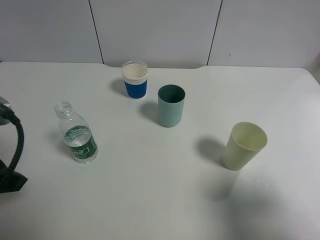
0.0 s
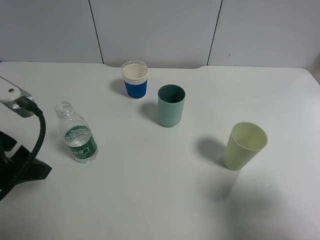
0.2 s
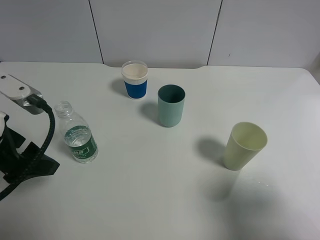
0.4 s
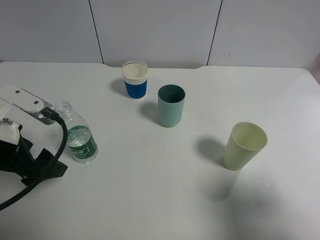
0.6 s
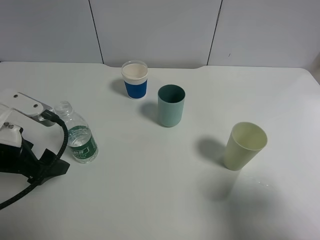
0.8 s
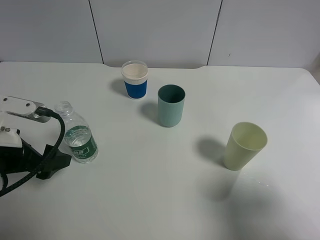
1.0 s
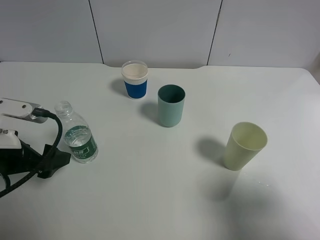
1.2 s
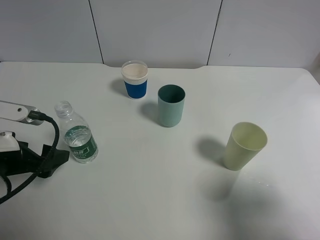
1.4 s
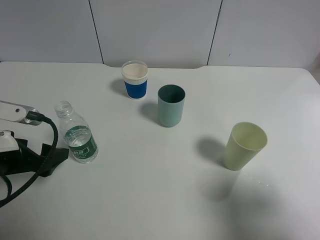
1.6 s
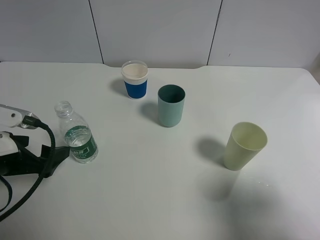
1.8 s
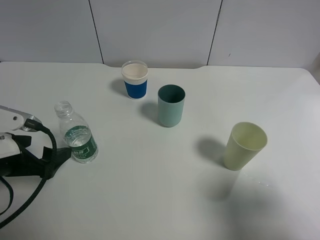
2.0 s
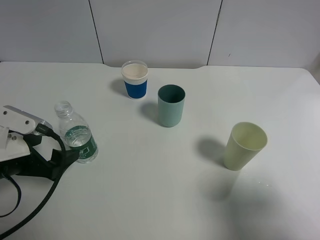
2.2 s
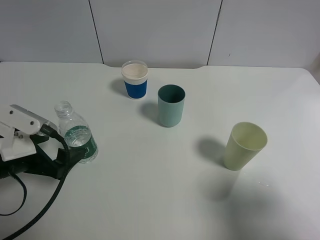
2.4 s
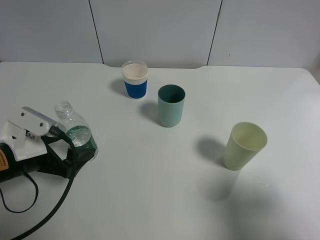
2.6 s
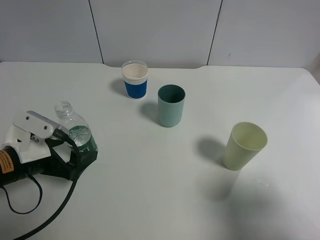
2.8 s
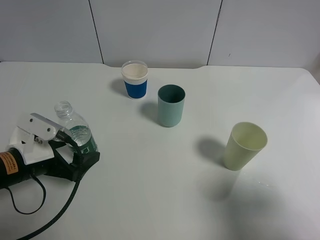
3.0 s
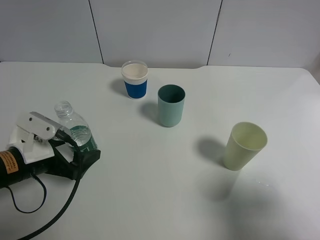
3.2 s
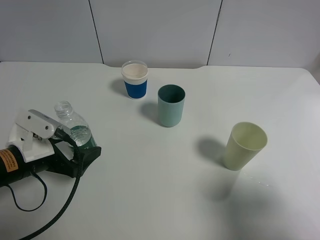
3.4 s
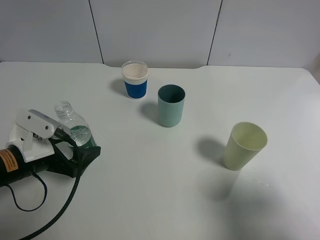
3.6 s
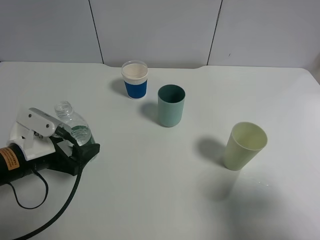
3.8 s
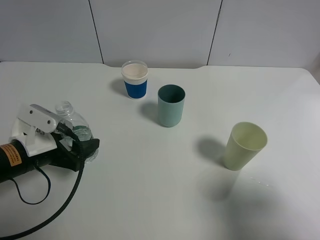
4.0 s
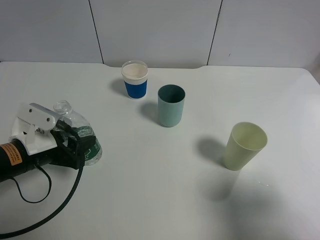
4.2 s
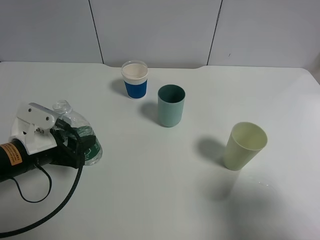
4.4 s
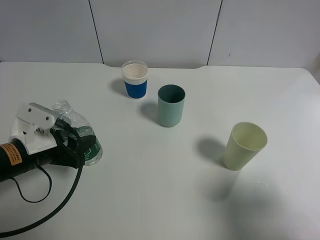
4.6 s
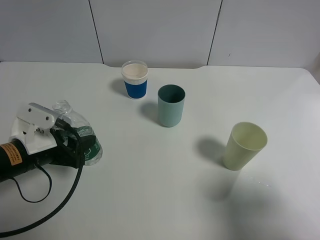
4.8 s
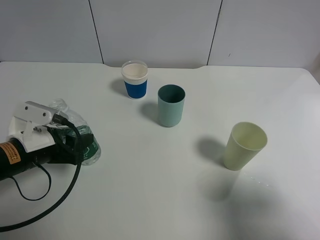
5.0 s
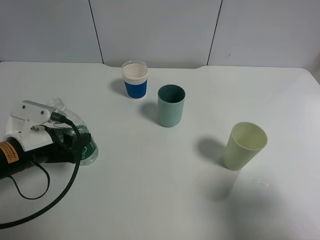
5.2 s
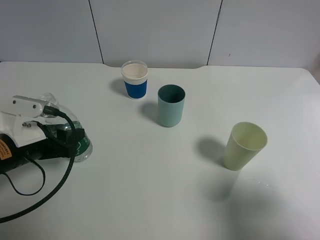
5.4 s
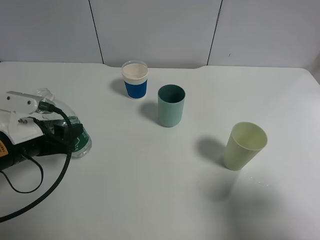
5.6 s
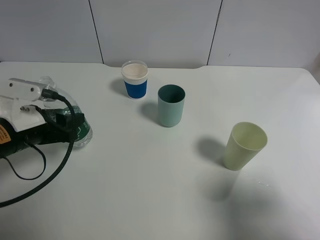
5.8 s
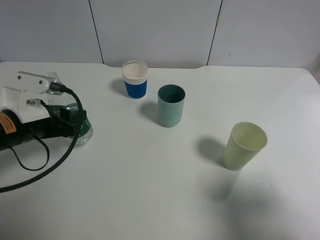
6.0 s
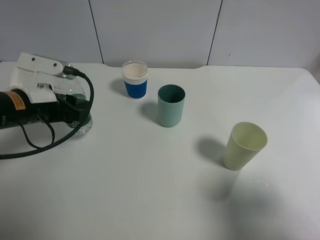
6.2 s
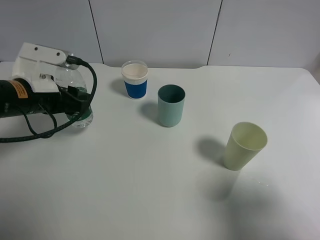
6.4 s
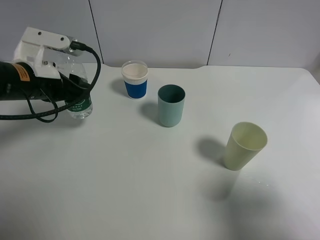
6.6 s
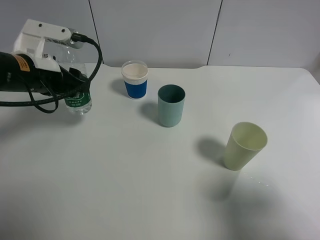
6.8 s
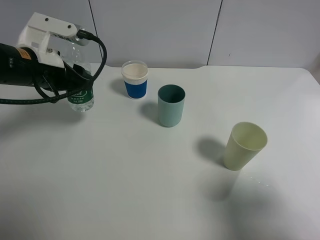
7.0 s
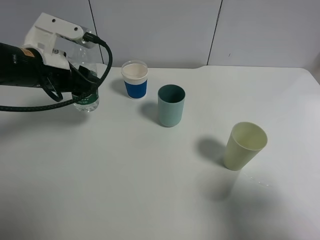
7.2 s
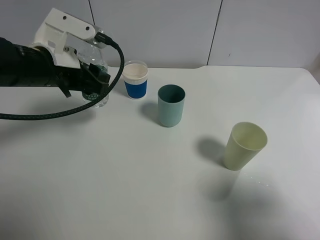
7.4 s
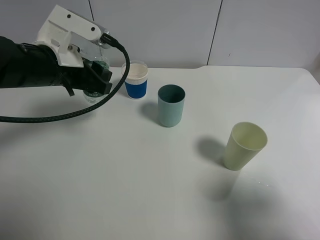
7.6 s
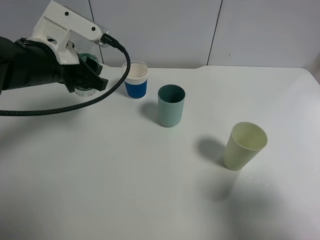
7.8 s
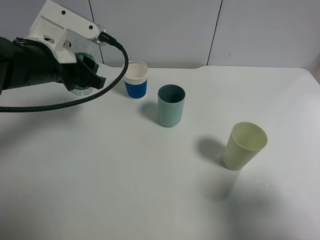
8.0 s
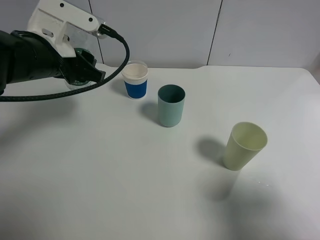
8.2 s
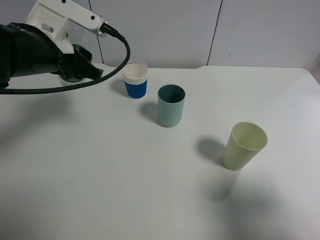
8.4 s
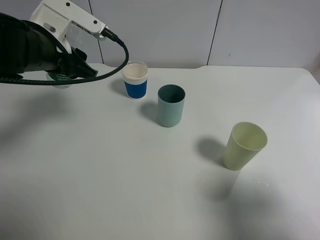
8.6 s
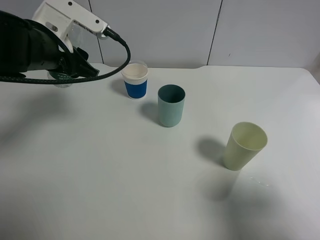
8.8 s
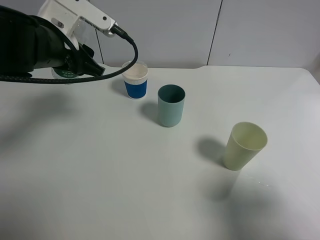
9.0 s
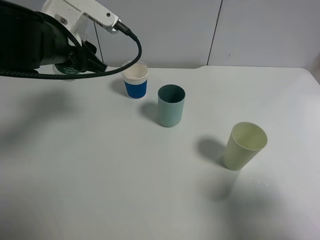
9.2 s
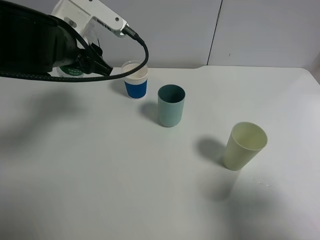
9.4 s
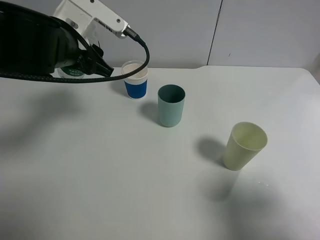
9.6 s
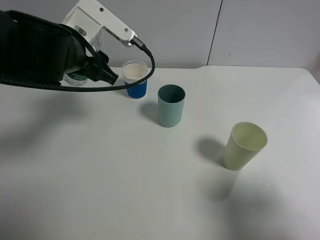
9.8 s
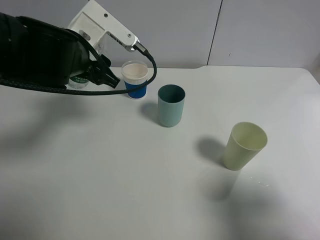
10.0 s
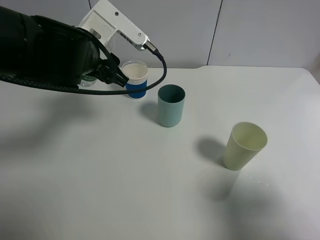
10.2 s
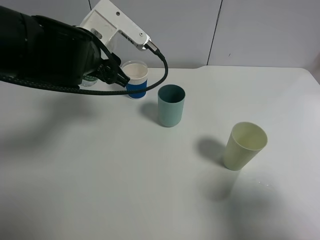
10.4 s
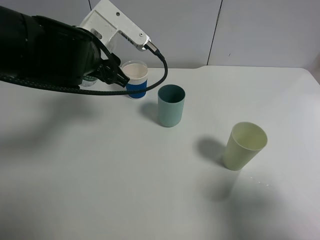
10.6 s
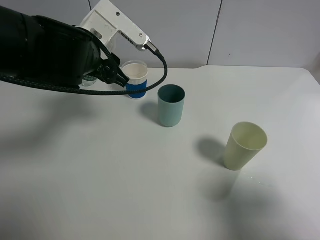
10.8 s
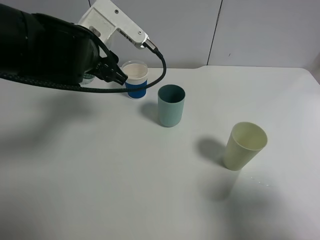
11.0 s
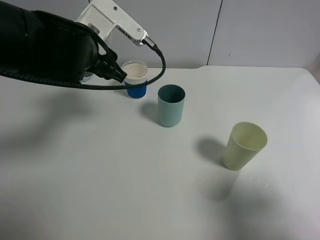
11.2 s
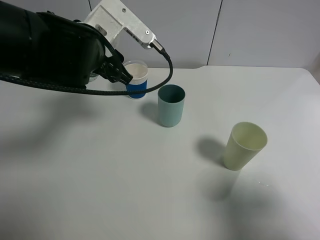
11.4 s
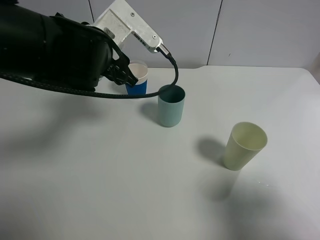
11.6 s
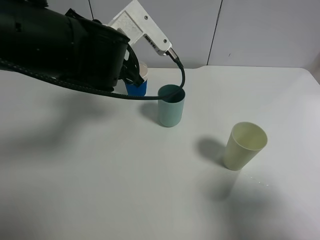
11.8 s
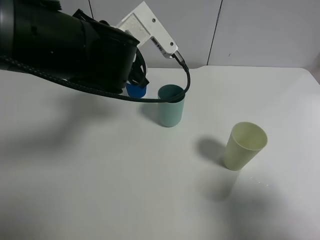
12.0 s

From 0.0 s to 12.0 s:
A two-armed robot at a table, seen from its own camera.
Task of the whole recording: use a gripper to hold the bottle of the drink and pour it into a random cup.
Step, from 0.0 s to 4.4 s: Grasp the mineral water bottle with the left gripper.
From 0.0 s to 1.6 s: The left gripper travels downward by approximately 10 cm.
From 1.6 s to 3.0 s: The left gripper moves downward, about 5 cm.
From 3.0 s to 4.4 s: The left gripper closes.
From 4.4 s to 6.0 s: The left gripper changes place by approximately 5 cm.
From 6.0 s to 7.6 s: The left gripper heads upward, forward and to the right, covering about 10 cm.
From 9.0 s to 10.4 s: The left gripper is displaced to the right by about 5 cm.
From 10.4 s to 12.0 s: The grippers stay close to where they were, moving slightly.

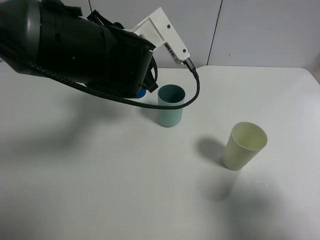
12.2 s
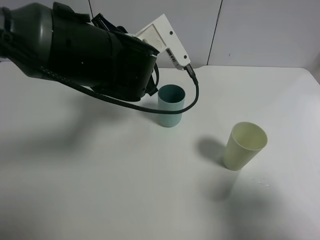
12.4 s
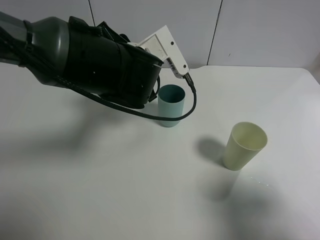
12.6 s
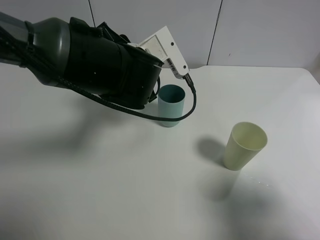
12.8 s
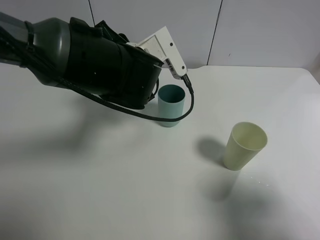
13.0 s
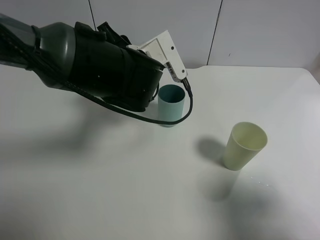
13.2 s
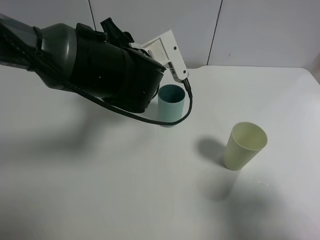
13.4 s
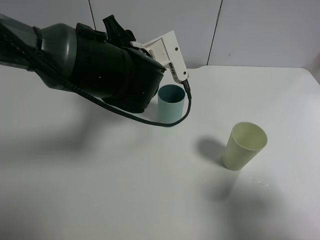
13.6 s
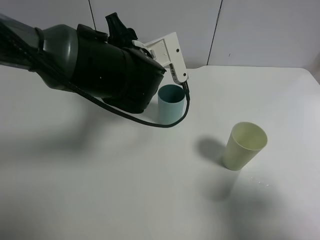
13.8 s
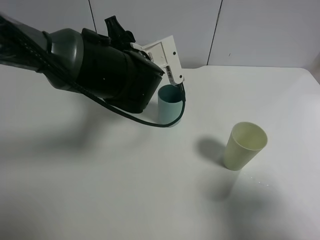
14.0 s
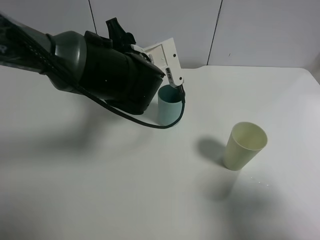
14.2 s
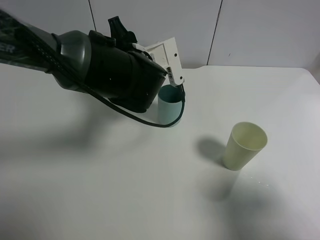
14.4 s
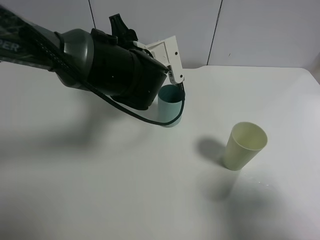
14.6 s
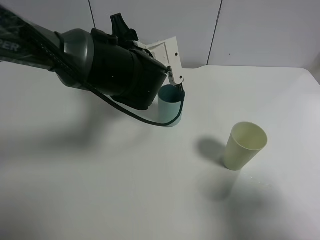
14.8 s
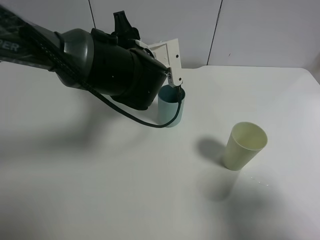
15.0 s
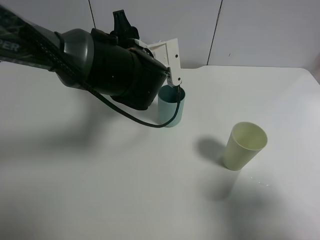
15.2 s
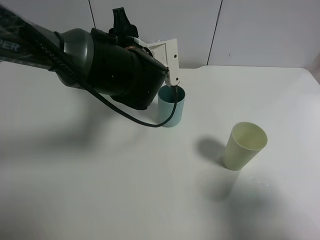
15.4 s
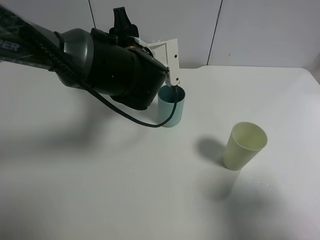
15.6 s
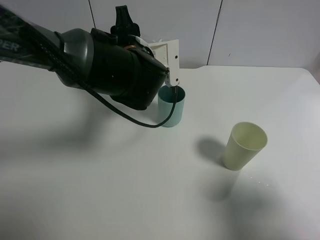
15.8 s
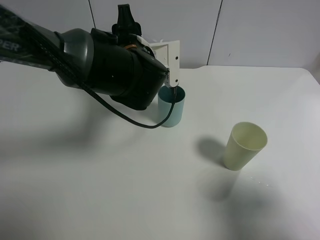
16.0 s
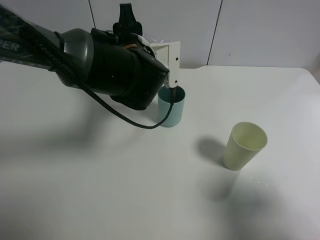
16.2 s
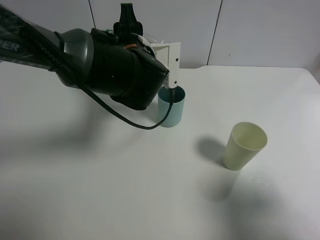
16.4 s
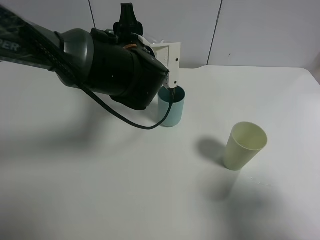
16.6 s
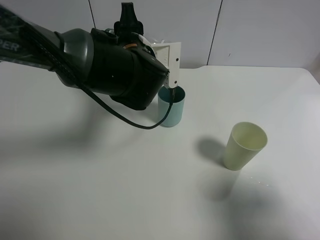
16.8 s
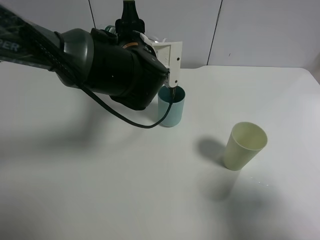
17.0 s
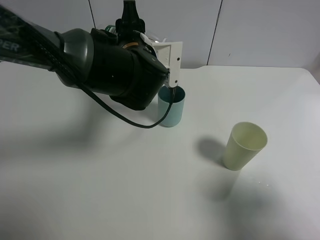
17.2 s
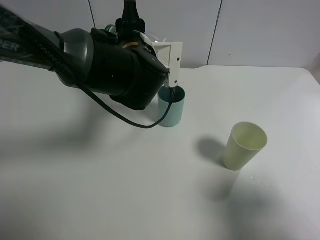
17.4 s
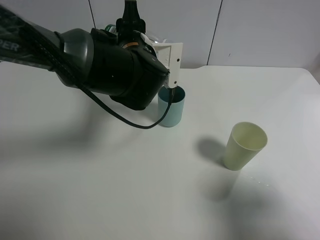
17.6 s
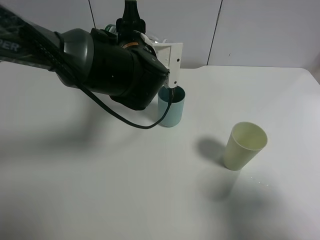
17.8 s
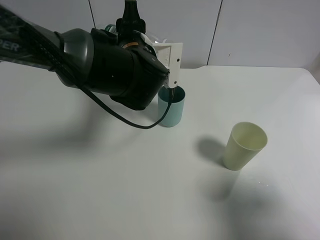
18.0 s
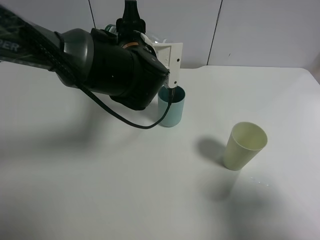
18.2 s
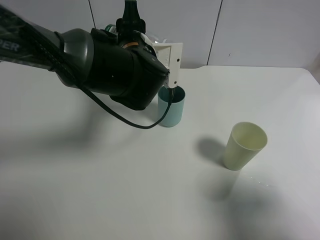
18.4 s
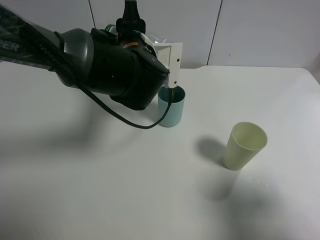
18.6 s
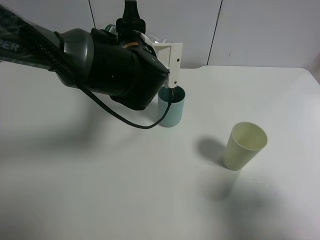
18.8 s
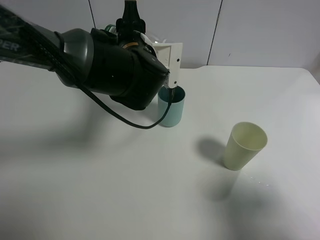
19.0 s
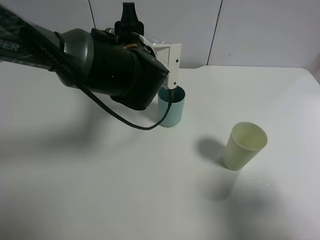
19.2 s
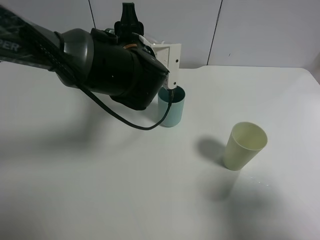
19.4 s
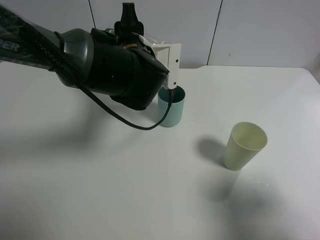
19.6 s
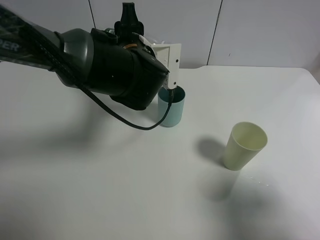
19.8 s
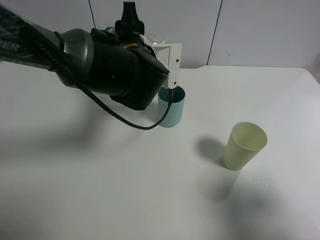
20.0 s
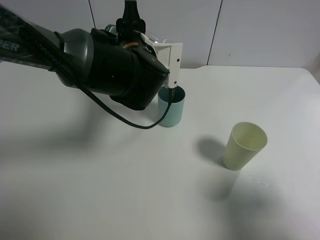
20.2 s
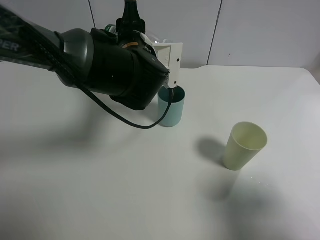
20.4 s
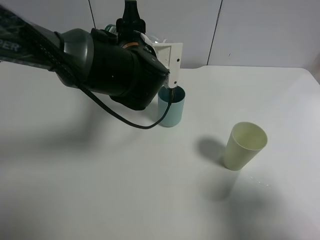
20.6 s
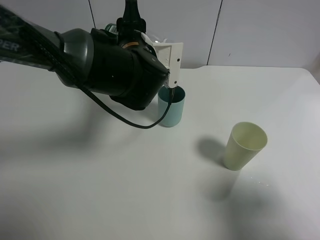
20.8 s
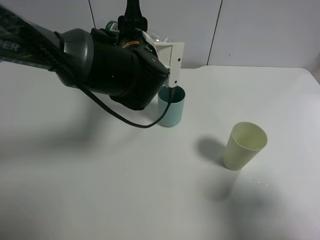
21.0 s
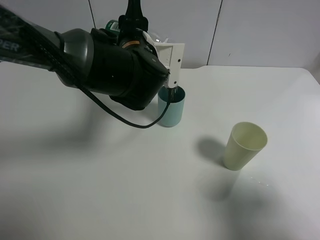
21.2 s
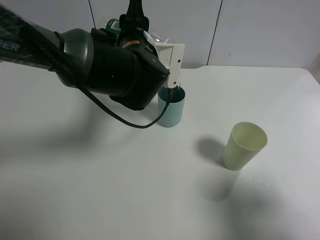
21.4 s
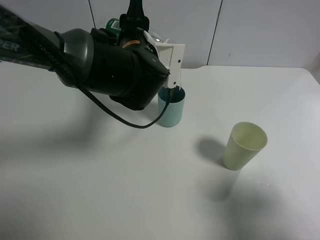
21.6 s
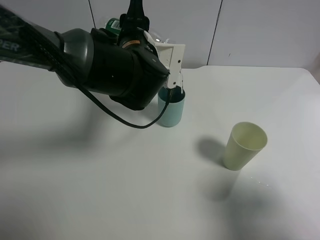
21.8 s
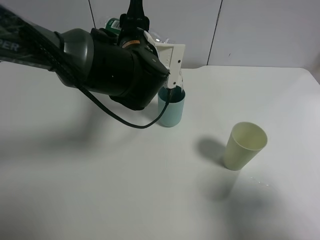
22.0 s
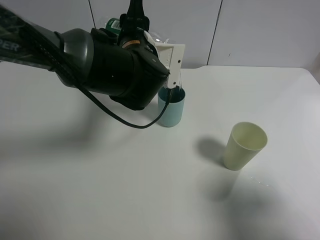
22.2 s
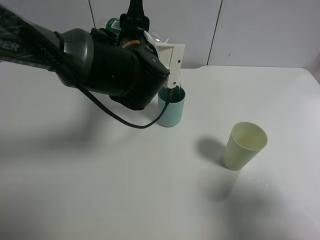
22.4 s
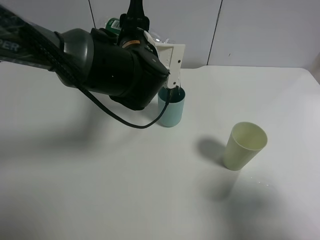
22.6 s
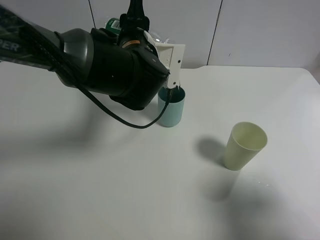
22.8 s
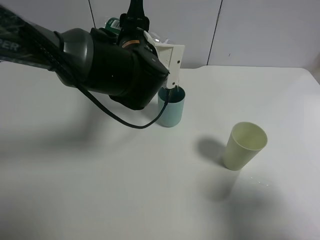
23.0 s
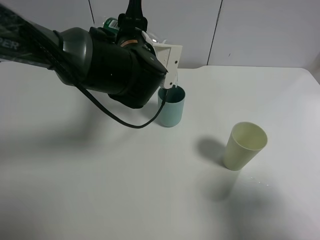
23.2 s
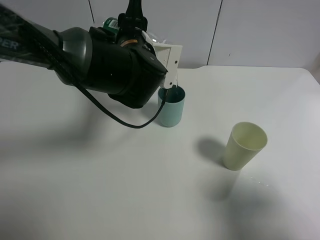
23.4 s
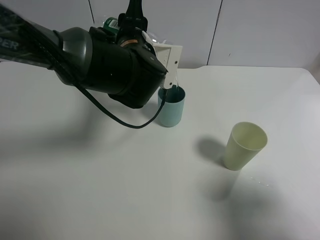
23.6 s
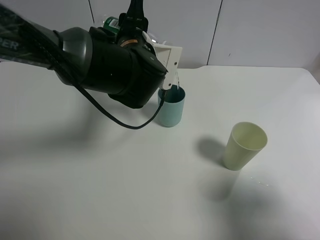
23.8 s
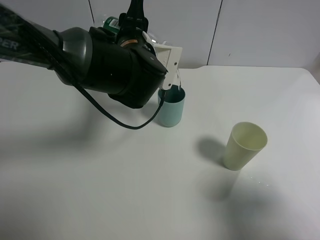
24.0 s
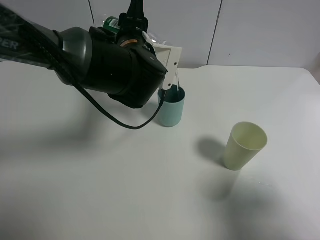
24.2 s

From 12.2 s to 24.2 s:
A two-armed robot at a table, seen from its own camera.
Task of the whole recording: use a gripper to hold the bottle of the drink and pour it into a random cup.
From 12.2 s to 13.8 s: The grippers stay close to where they were, moving slightly.
From 13.8 s to 16.6 s: The grippers move only a little.
From 16.6 s to 19.8 s: The two grippers keep their place.
From 19.8 s to 21.2 s: There are only small adjustments of the grippers.
From 21.2 s to 22.6 s: Both grippers stay about where they are.
From 22.6 s to 24.2 s: The two grippers keep their place.
